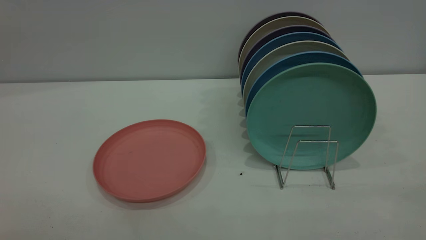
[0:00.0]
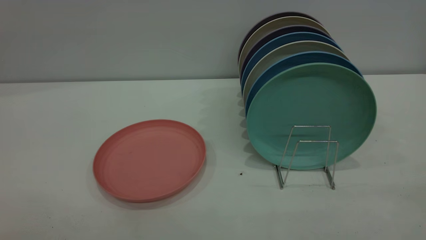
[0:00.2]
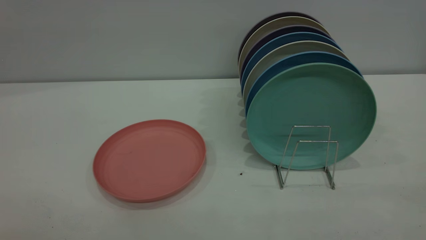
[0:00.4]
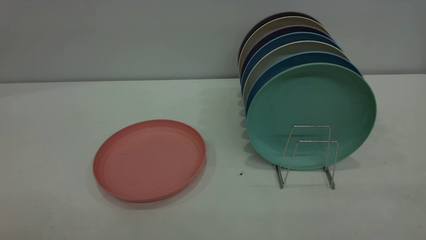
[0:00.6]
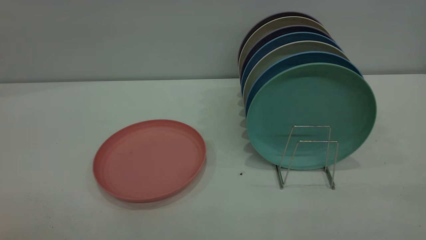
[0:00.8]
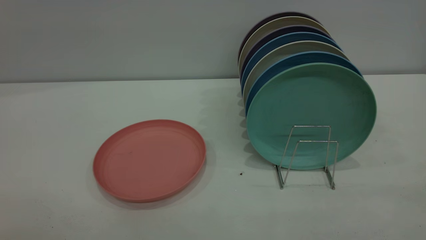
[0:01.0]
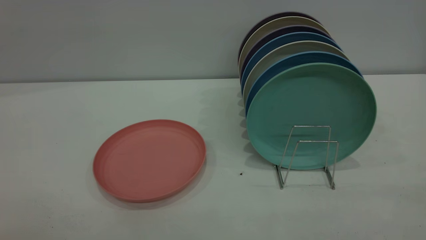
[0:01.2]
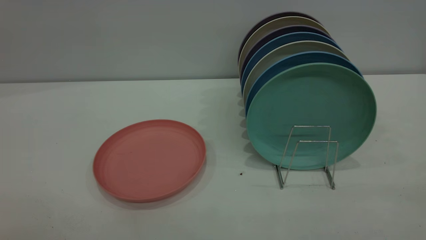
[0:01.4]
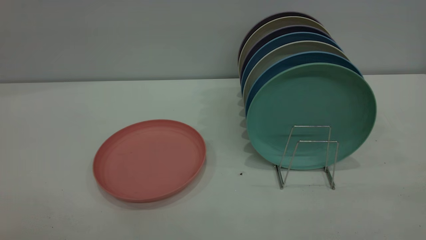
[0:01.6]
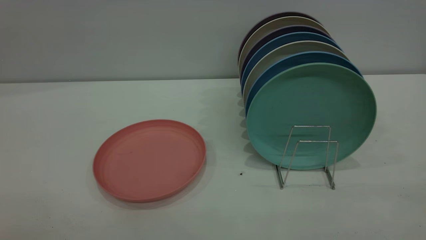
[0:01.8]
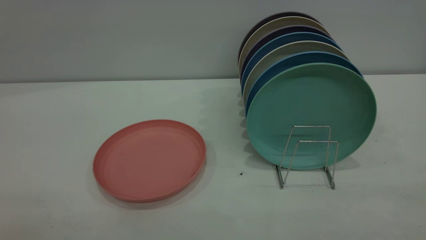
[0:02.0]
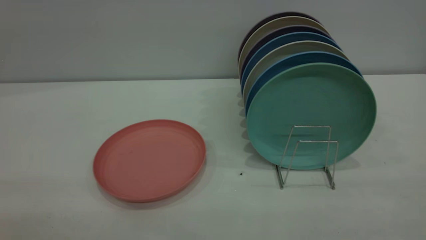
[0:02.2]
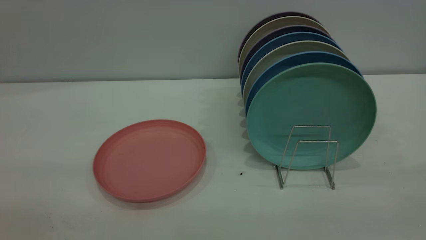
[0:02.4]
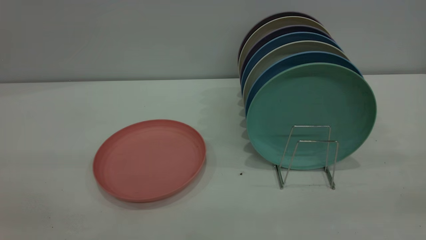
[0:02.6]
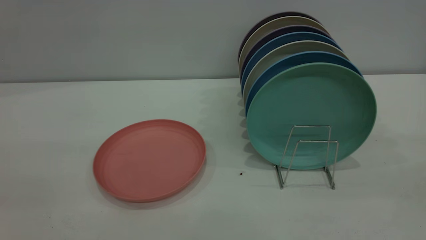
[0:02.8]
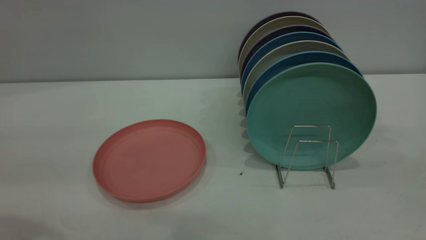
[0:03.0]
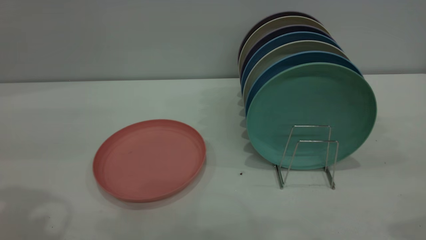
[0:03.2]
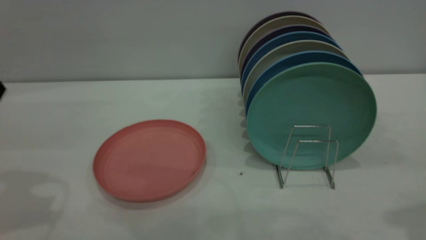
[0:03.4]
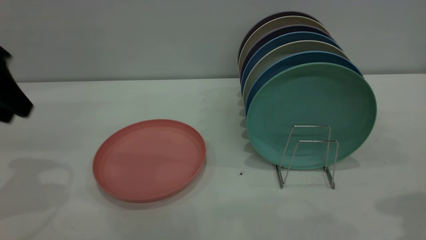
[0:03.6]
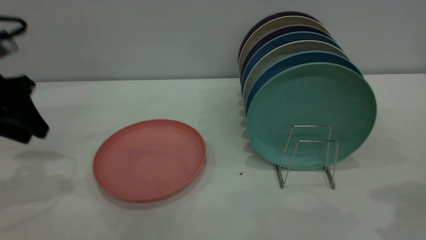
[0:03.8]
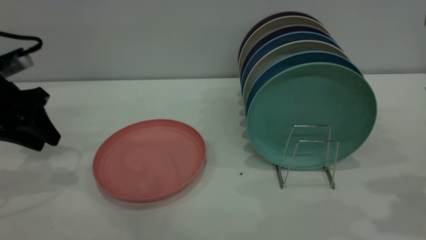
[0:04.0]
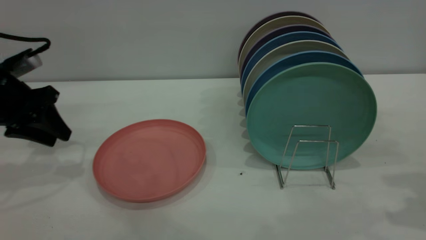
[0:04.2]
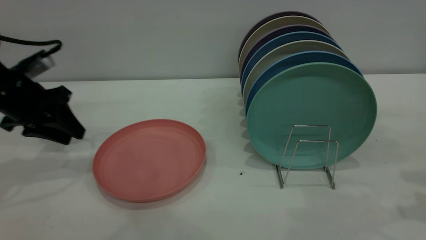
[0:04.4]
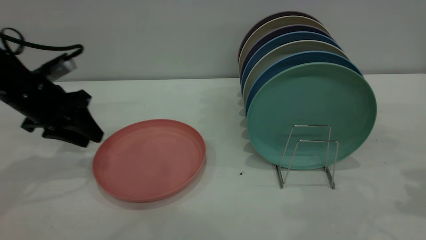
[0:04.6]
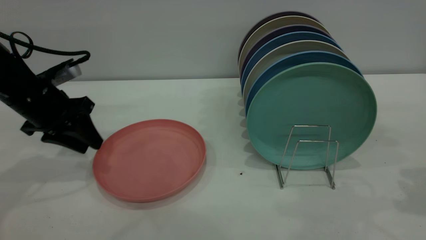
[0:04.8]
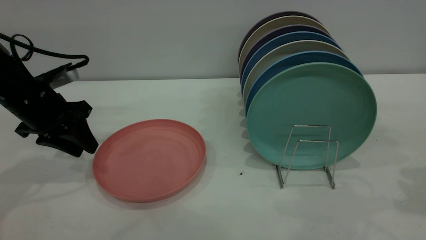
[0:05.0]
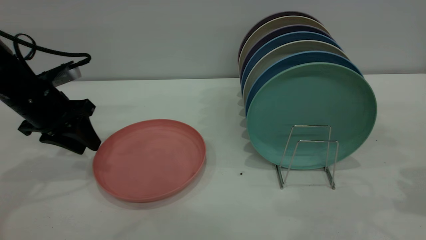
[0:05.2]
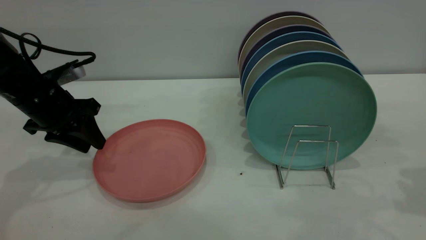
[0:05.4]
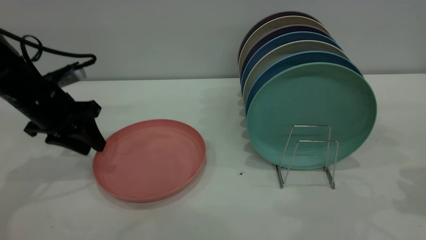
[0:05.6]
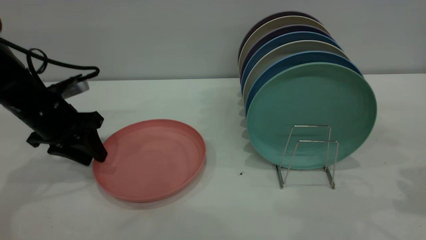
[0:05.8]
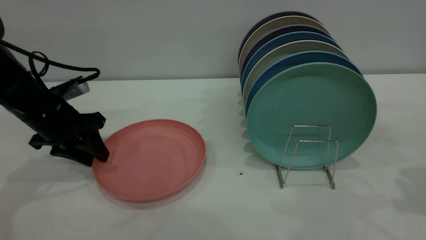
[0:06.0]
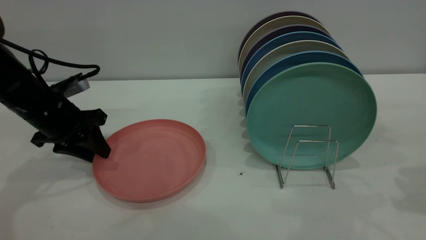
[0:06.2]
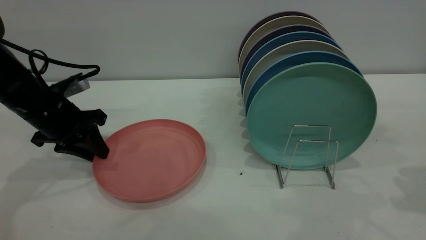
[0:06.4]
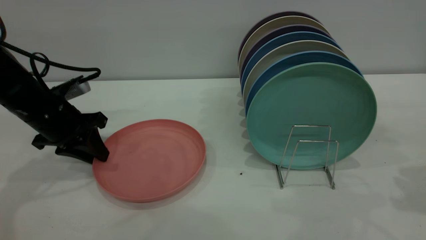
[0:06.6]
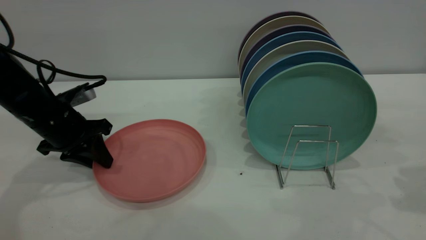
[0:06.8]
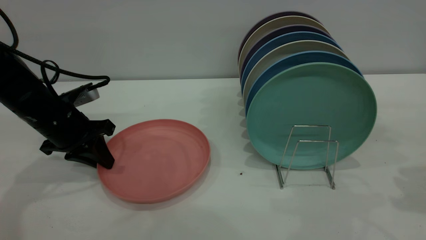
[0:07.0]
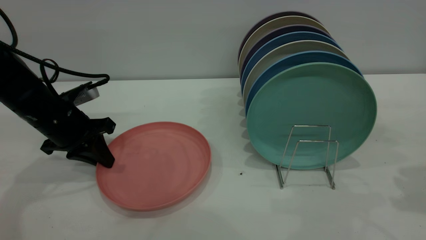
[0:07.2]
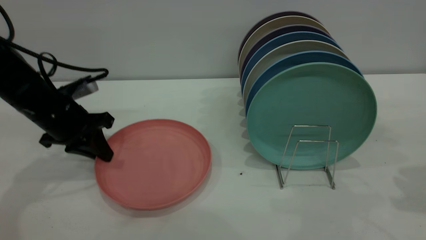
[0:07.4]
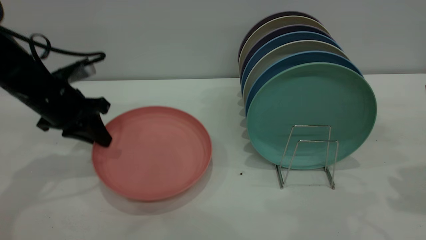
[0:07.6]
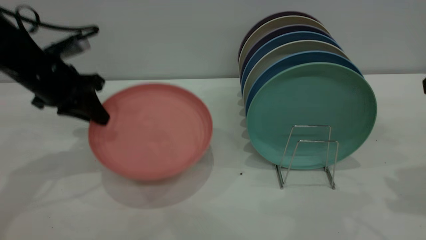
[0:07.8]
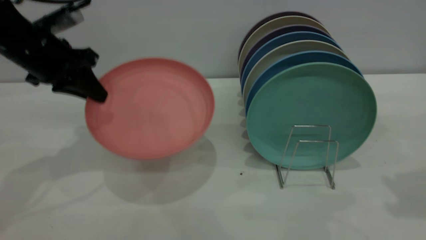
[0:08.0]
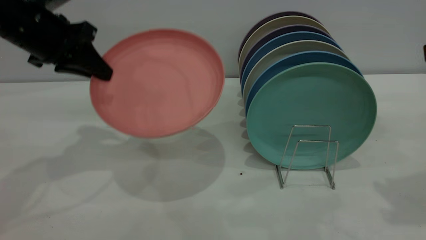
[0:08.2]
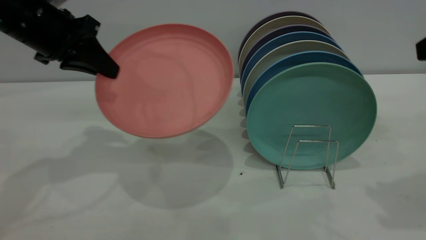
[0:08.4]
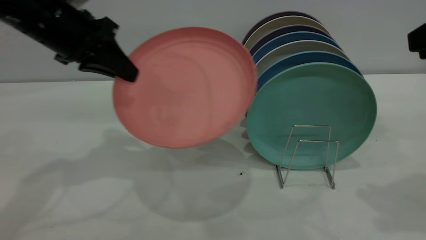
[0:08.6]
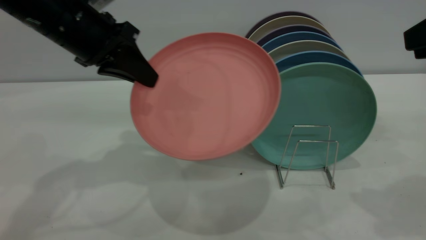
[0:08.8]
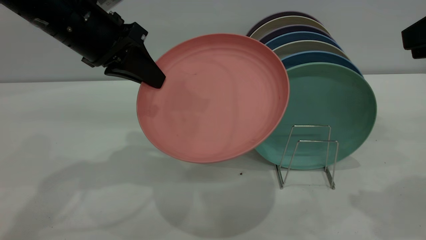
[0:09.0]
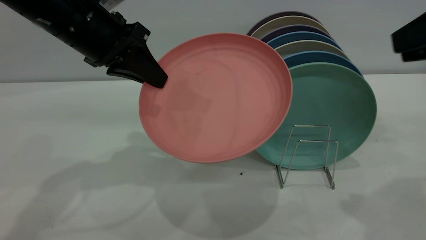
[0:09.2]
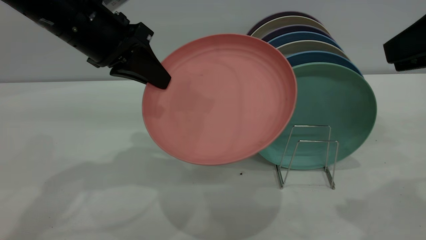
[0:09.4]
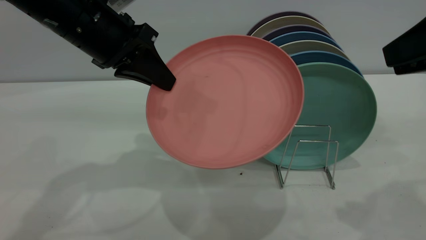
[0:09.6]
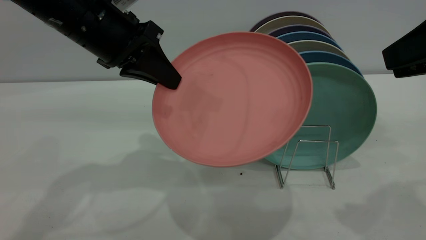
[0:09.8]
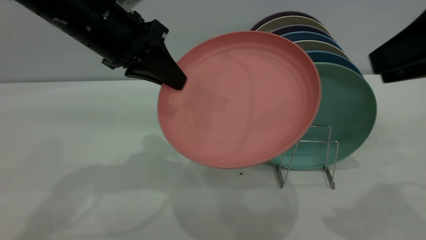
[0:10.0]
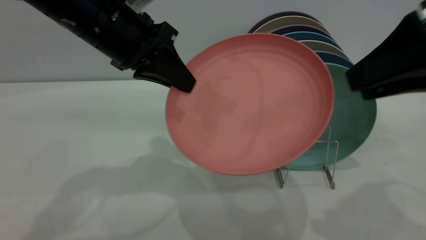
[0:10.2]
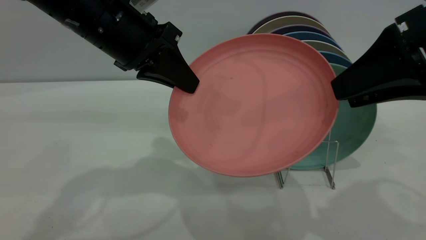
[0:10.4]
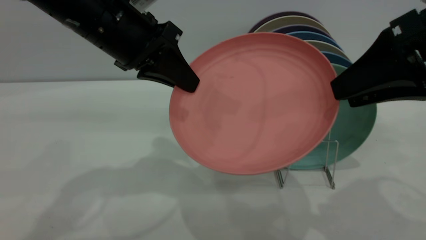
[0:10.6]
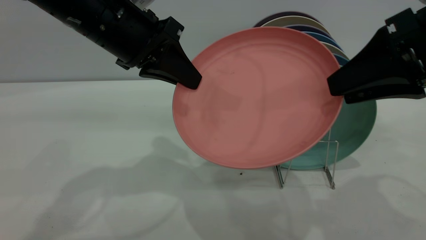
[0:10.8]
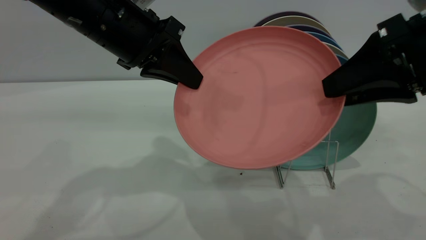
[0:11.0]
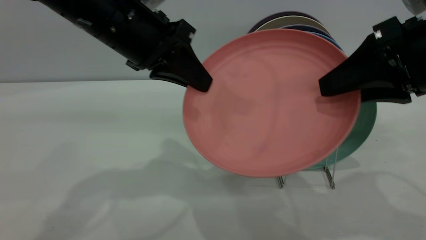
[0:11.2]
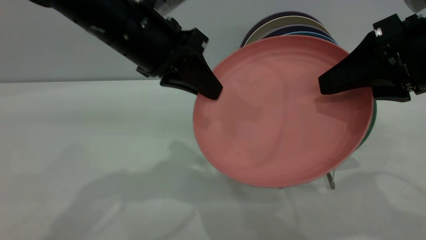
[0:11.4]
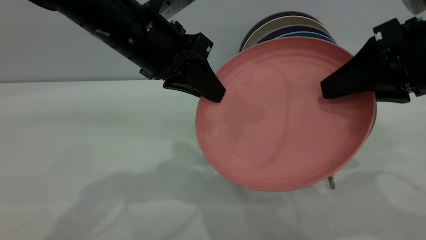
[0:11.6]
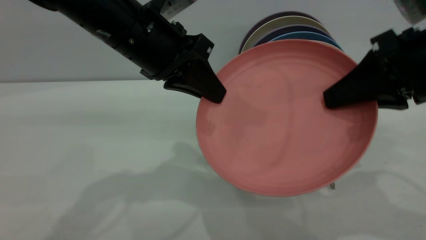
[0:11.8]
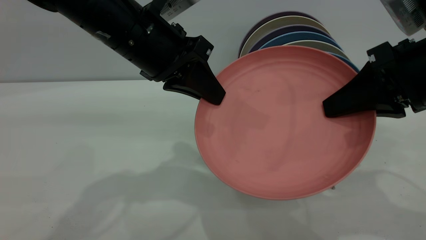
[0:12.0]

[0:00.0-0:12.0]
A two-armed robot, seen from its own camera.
Task of the whole recording: put the plate on the plate rack.
Step, 0:00.0 to 0:07.6: Pick up the plate with the left gripper.
0:00.0 to 0:01.6: Both grippers stay put.
0:03.0 to 0:04.4: The left gripper is displaced forward and downward by roughly 25 cm.
0:04.4 to 0:06.0: The left gripper moves roughly 5 cm.
0:06.0 to 0:07.6: The left gripper closes.
0:07.6 to 0:09.0: The left gripper travels upward and to the right by about 15 cm. The right gripper heads upward, covering some 5 cm.
0:09.0 to 0:10.4: The right gripper moves to the left, approximately 5 cm, and opens up.
0:10.4 to 0:12.0: The right gripper closes up.

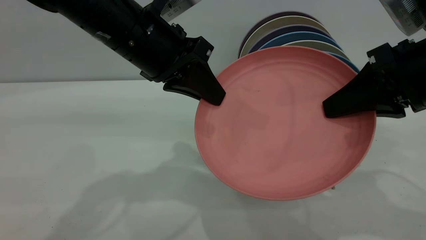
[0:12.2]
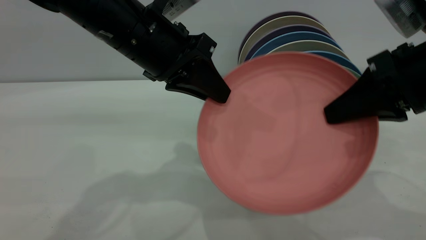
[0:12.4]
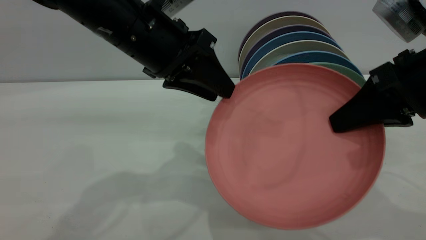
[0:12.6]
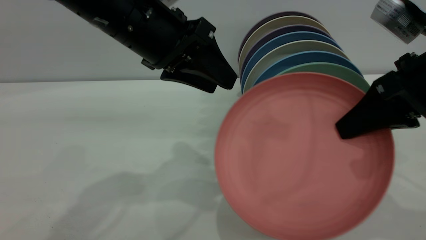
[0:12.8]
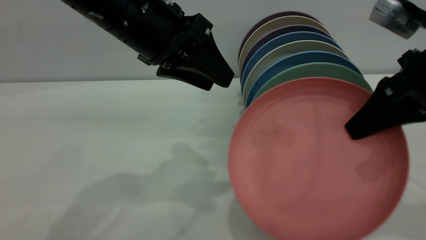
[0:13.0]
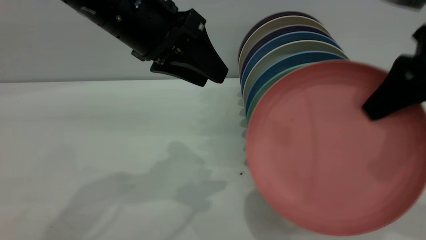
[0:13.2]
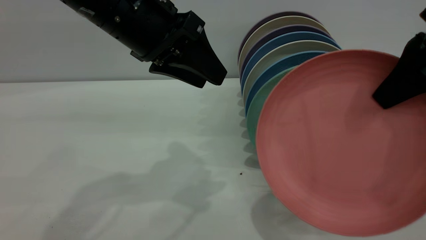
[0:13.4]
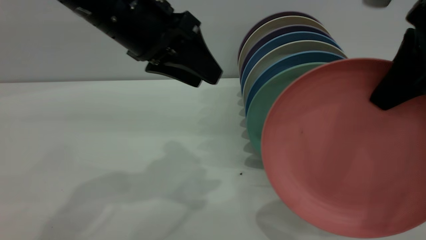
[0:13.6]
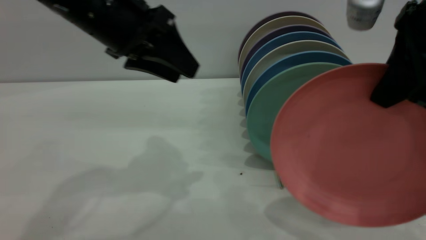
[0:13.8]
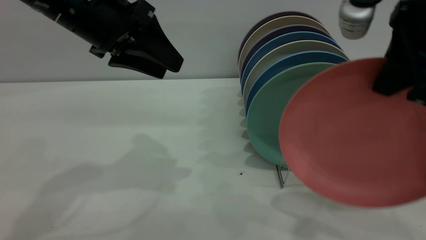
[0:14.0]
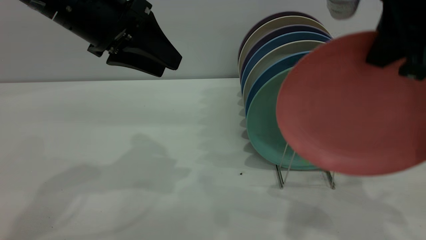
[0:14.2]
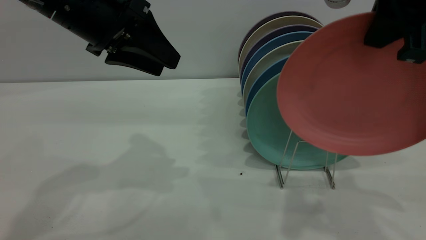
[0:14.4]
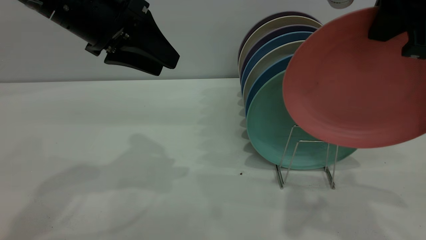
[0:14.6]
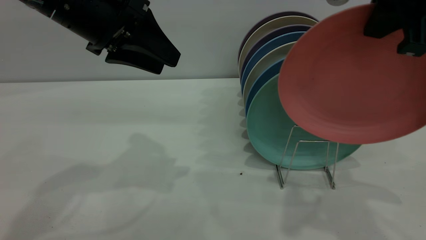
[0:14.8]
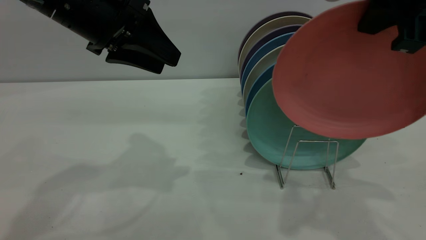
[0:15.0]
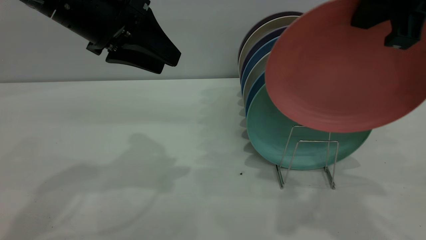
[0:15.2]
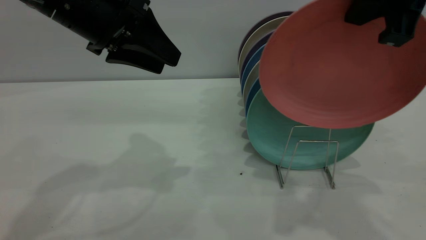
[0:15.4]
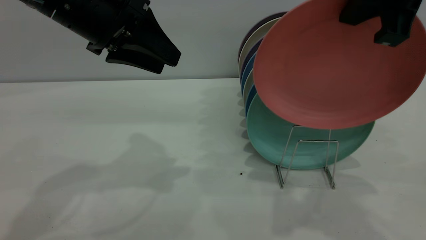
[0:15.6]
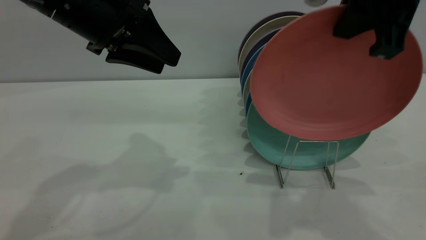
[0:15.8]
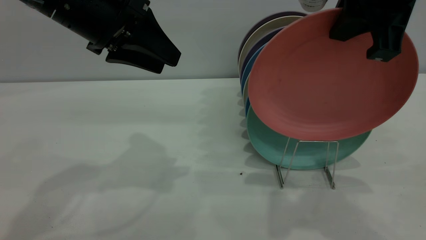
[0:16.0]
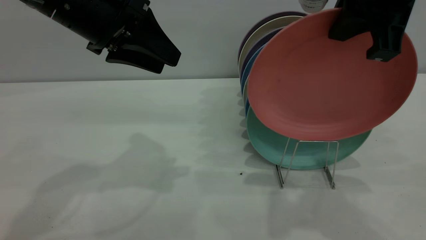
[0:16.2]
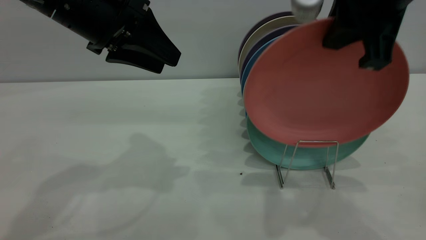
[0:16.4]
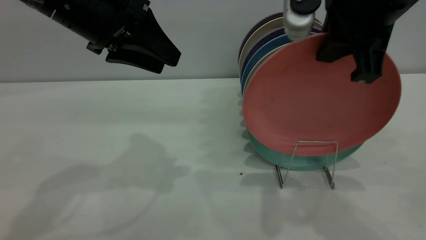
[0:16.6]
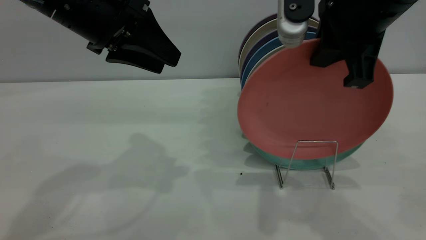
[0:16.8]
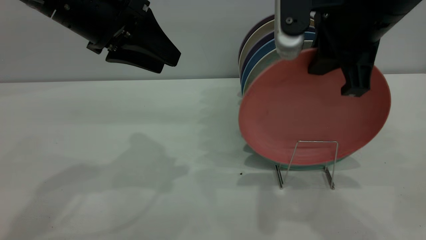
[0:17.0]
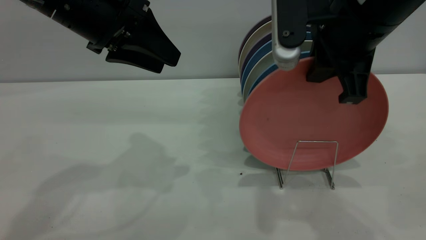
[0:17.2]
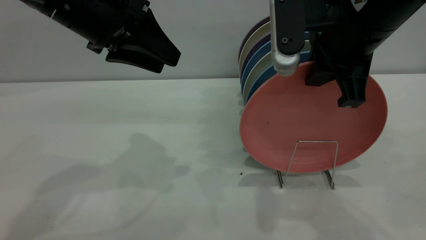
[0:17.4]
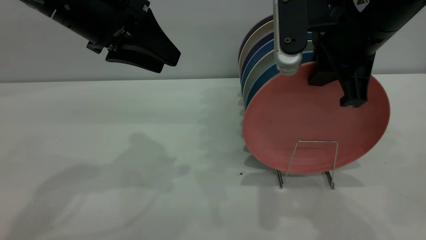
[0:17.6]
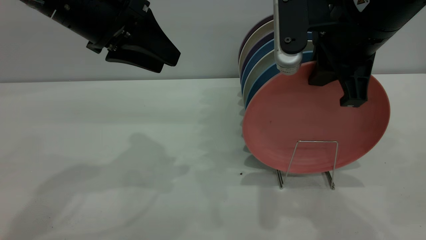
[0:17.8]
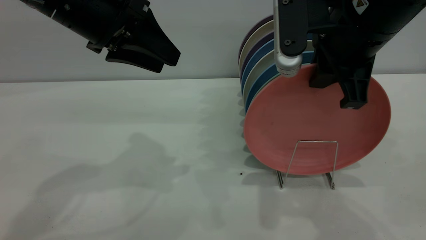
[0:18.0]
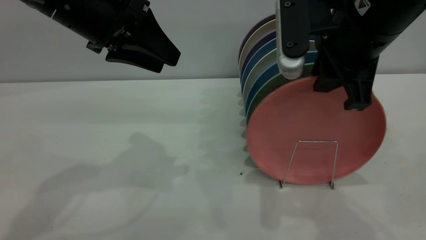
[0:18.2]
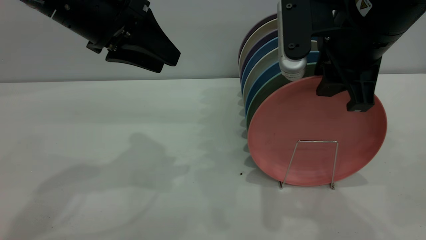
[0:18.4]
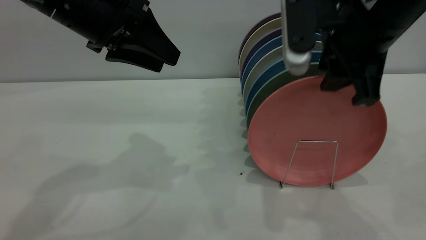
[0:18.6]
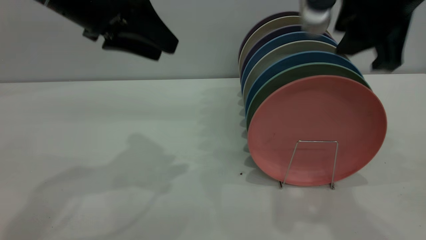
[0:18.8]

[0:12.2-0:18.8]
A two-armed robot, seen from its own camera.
Task of the whole recording: put the plate on the plate rack.
Step, 0:13.0 to 0:18.8: Place the plate on the shelf.
0:12.2 to 0:13.8: The left gripper goes approximately 5 cm to the left, and opens its fingers. Meanwhile the right gripper goes roughly 5 cm upward.
0:13.8 to 0:15.4: The right gripper moves about 5 cm.
0:15.4 to 0:17.2: The right gripper shifts approximately 5 cm downward.
0:17.2 to 0:18.8: The right gripper travels upward by some 5 cm, and opens up.
